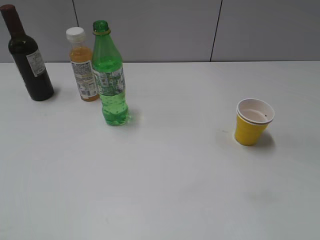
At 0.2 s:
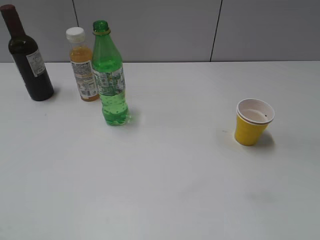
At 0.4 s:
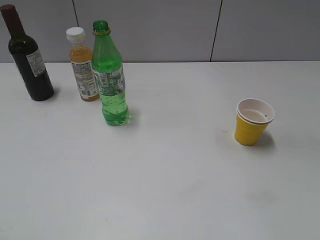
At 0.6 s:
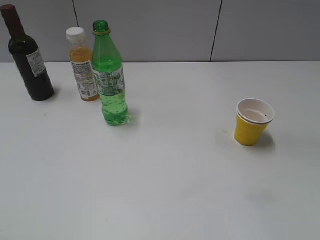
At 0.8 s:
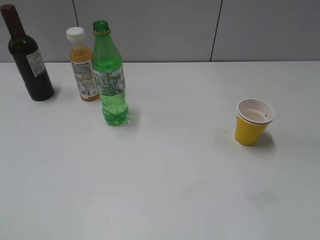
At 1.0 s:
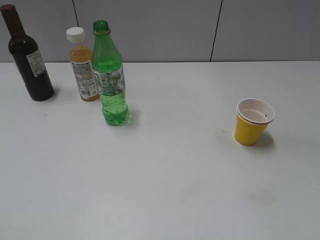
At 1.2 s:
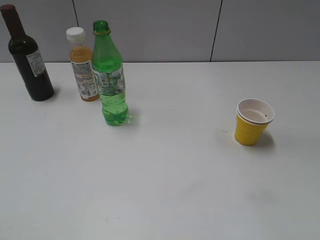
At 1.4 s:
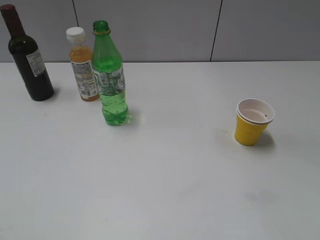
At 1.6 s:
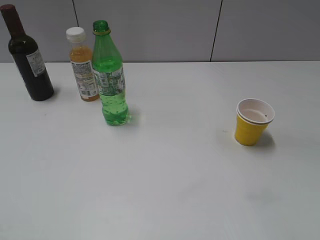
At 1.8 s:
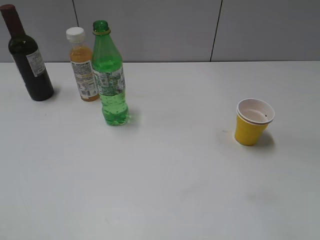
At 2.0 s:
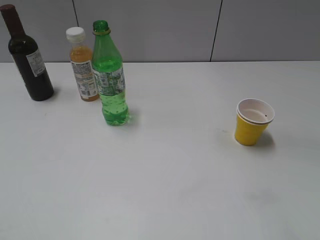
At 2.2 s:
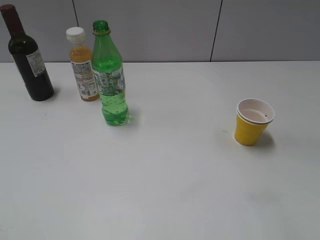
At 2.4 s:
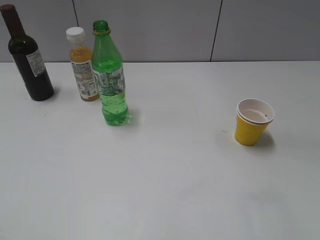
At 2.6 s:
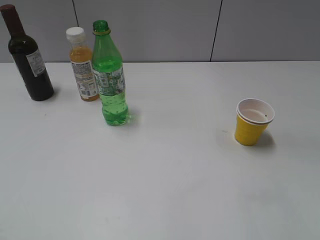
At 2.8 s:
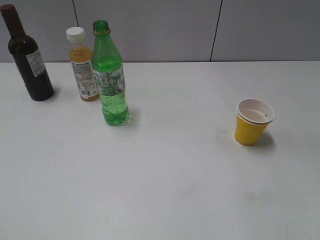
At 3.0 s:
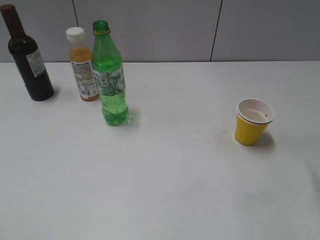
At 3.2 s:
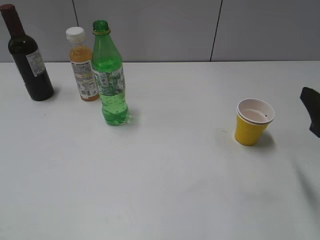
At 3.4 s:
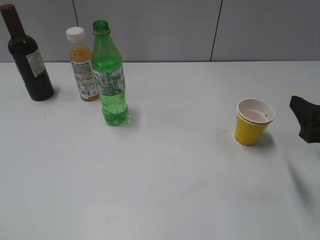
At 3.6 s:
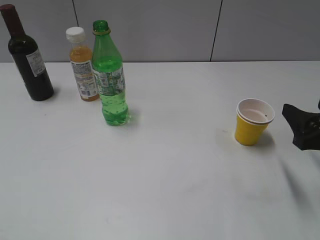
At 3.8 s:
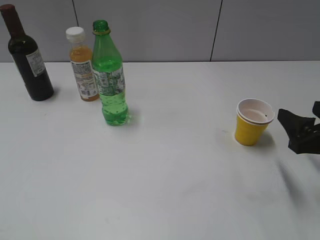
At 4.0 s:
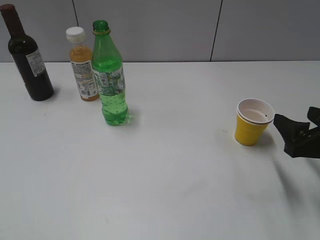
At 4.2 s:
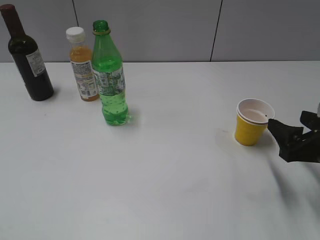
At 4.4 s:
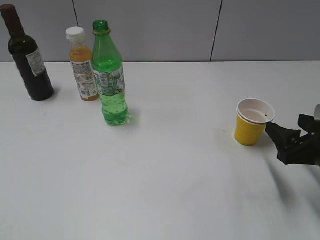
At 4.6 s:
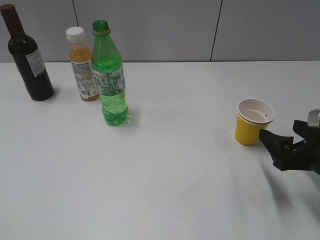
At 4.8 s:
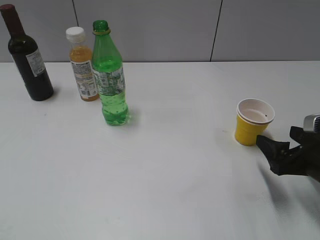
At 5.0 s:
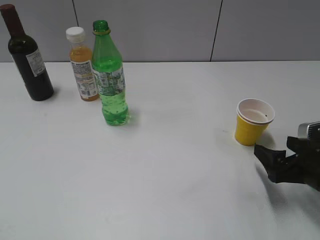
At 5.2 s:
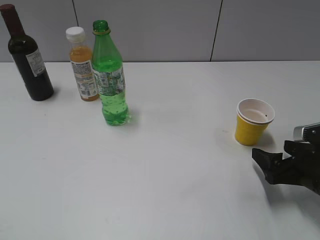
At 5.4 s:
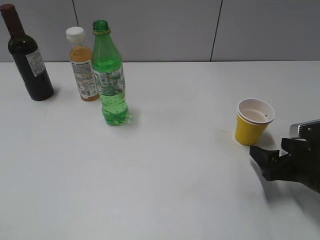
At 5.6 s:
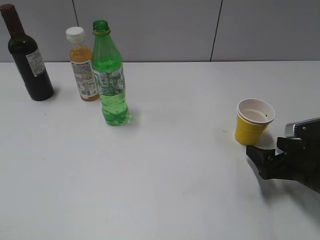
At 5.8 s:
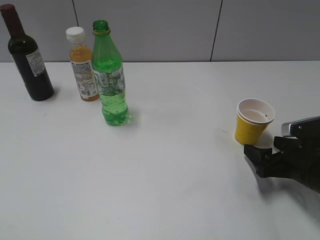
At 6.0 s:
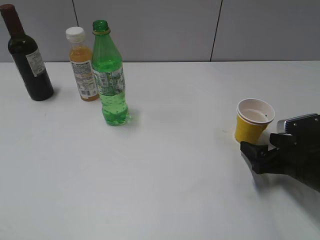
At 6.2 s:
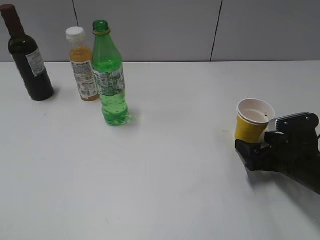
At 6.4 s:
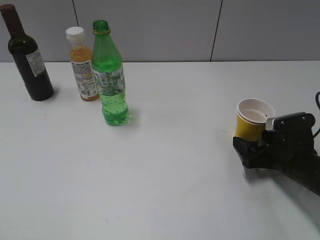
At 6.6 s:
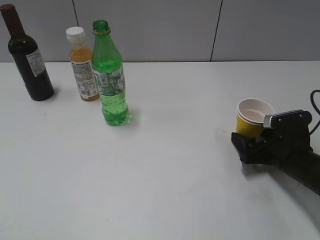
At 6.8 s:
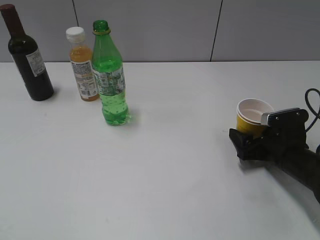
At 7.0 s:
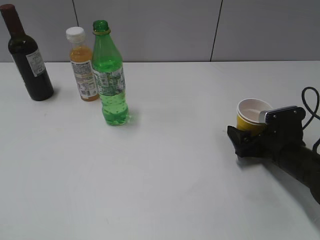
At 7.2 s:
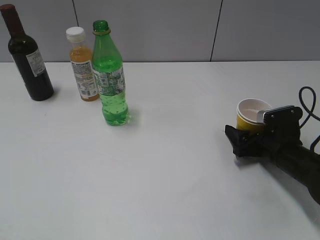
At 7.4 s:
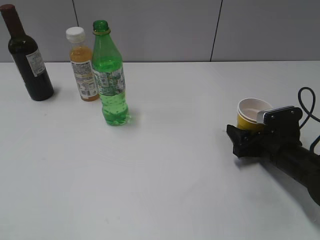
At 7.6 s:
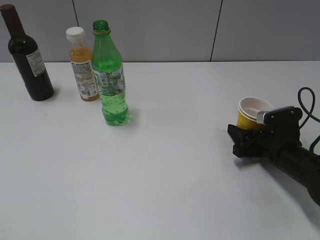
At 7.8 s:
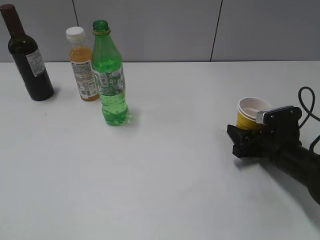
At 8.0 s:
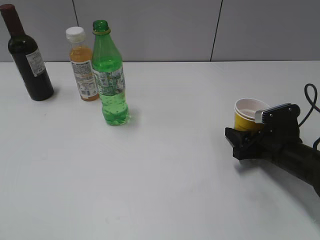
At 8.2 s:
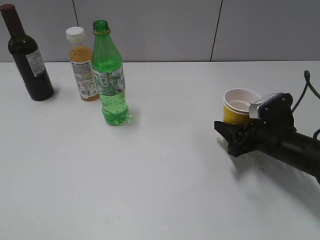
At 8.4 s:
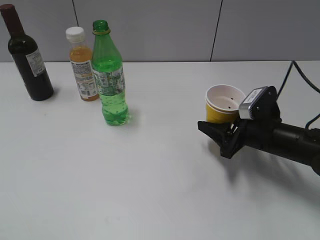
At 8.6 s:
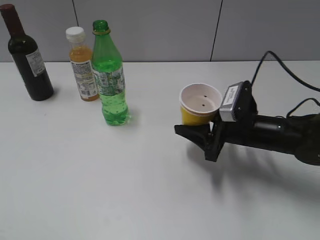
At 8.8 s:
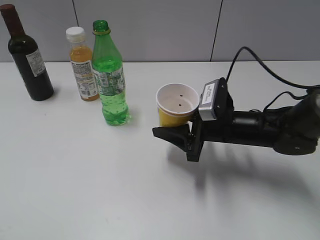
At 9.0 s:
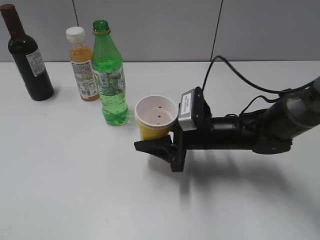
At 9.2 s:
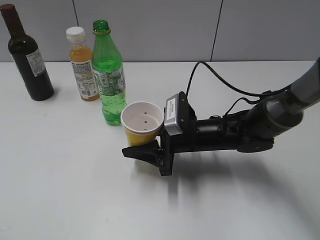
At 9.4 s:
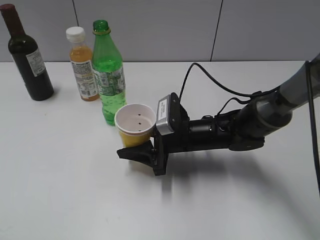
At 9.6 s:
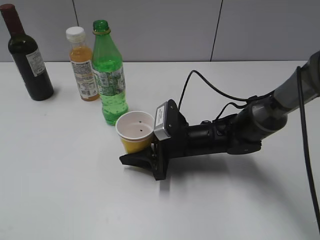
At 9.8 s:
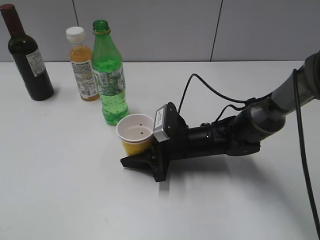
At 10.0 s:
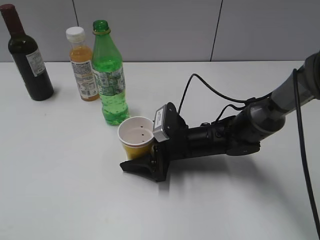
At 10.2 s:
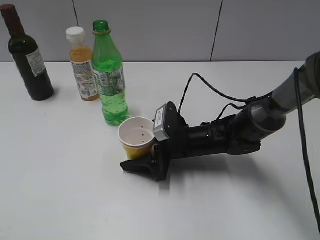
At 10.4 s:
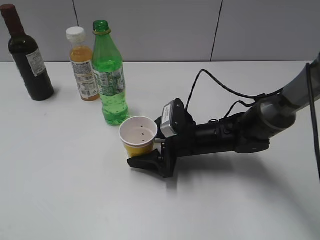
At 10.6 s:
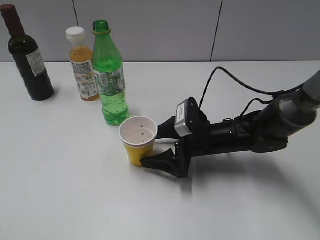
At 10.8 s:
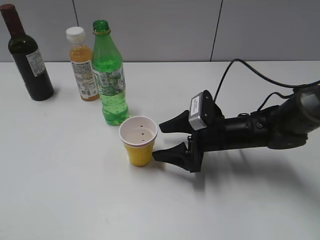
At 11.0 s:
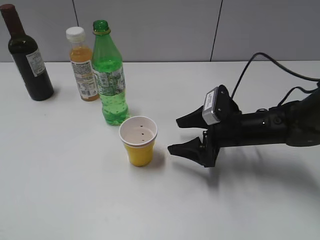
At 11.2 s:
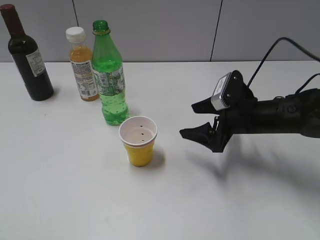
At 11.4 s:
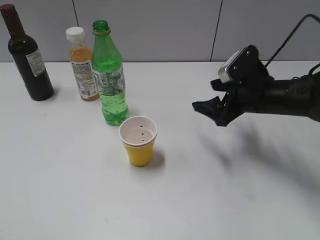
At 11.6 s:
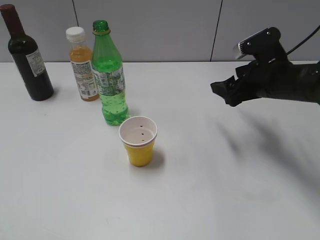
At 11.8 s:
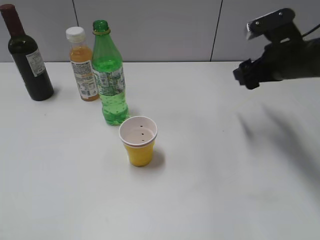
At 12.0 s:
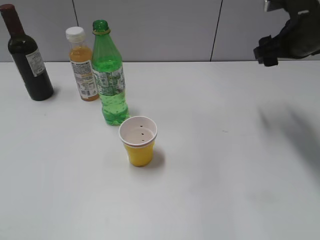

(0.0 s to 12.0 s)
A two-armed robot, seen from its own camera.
Step, 1.2 s - 7.6 s: Grasp the yellow paper cup with right gripper.
Step, 7.8 s - 10.6 s: Place the yellow paper cup on the table with right gripper.
3.0 s - 4.4 s: The right gripper moves downward, some 10 cm.
4.4 s - 6.0 s: The right gripper goes approximately 5 cm downward.
6.0 s - 7.6 s: The right gripper shifts by roughly 5 cm, and closes its fingers.
7.6 s - 9.0 s: The right gripper is displaced to the left by approximately 15 cm.
9.0 s - 10.4 s: The right gripper opens up.
10.4 s - 12.0 s: The right gripper travels upward and to the right by some 25 cm.

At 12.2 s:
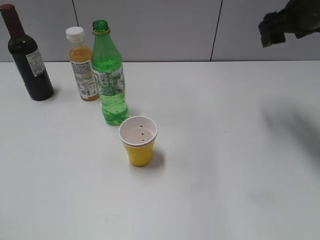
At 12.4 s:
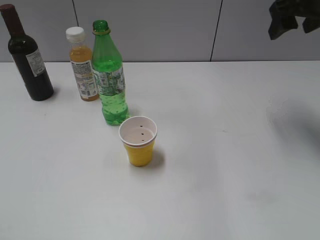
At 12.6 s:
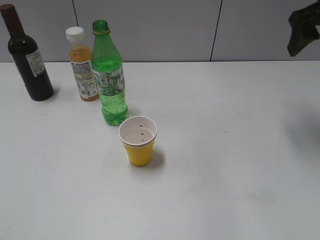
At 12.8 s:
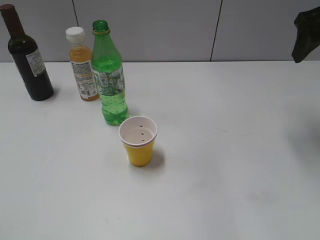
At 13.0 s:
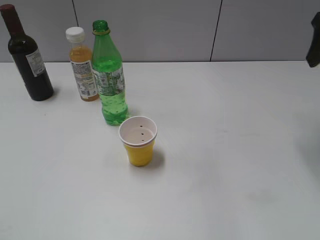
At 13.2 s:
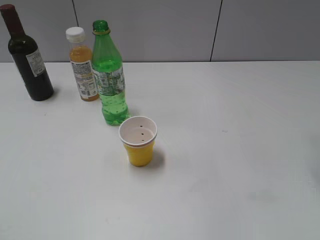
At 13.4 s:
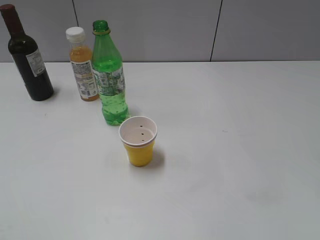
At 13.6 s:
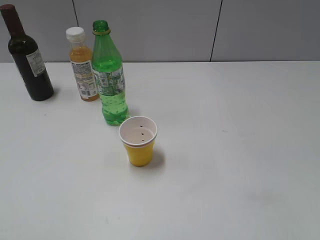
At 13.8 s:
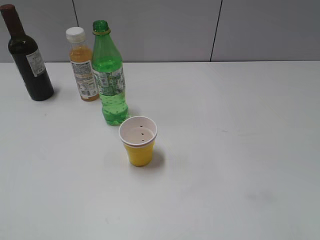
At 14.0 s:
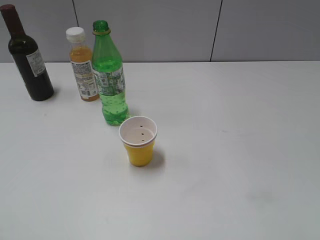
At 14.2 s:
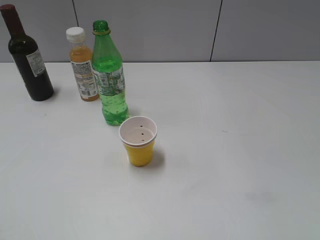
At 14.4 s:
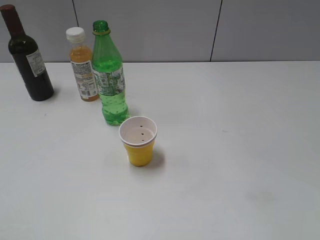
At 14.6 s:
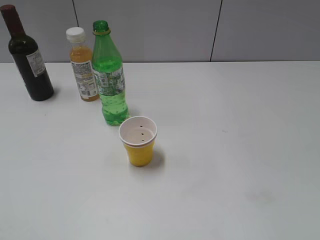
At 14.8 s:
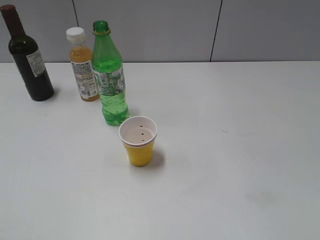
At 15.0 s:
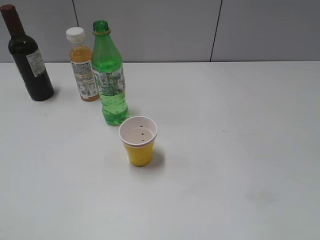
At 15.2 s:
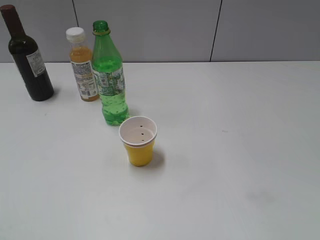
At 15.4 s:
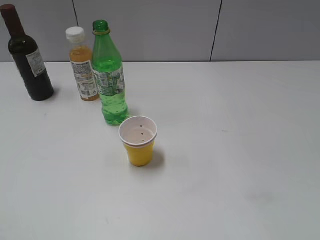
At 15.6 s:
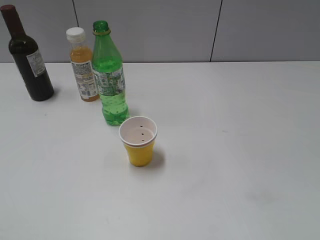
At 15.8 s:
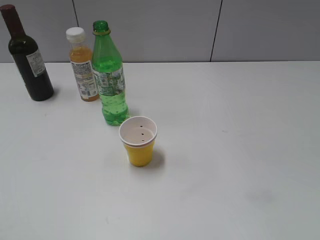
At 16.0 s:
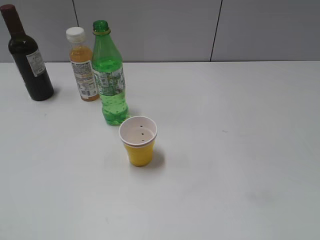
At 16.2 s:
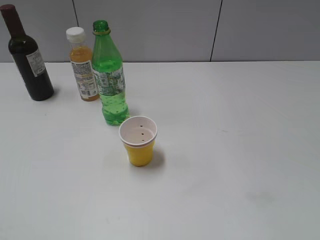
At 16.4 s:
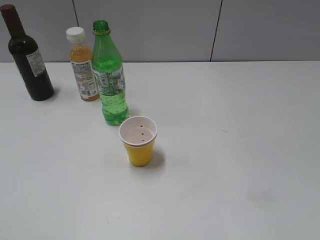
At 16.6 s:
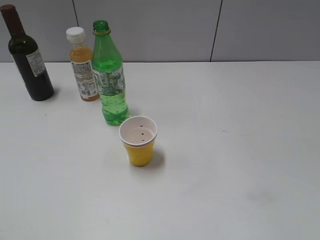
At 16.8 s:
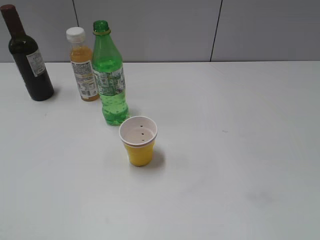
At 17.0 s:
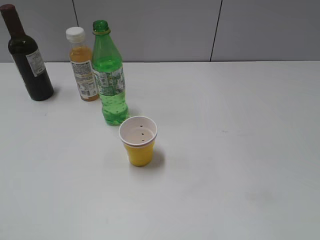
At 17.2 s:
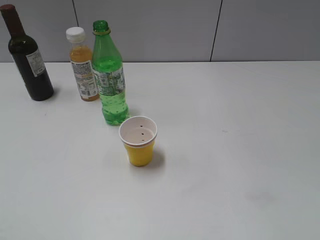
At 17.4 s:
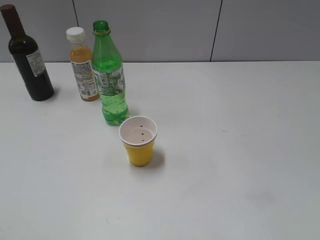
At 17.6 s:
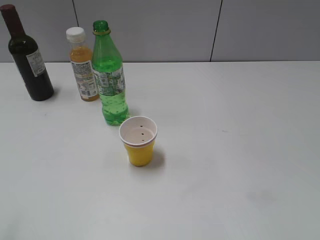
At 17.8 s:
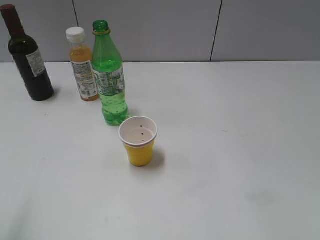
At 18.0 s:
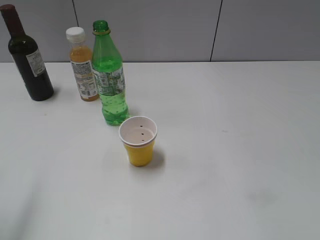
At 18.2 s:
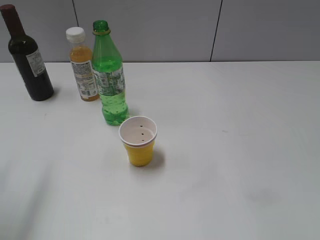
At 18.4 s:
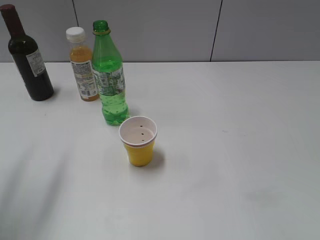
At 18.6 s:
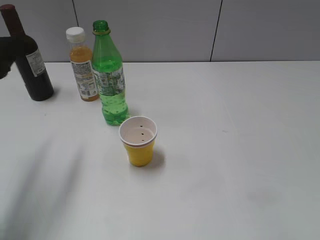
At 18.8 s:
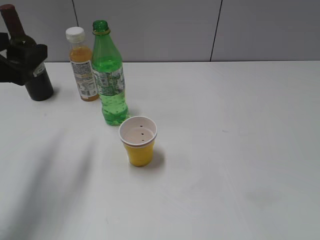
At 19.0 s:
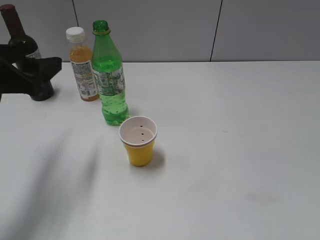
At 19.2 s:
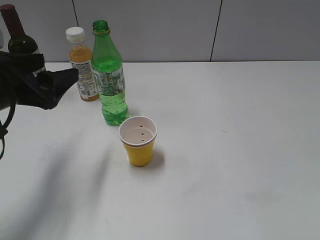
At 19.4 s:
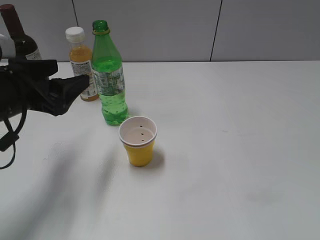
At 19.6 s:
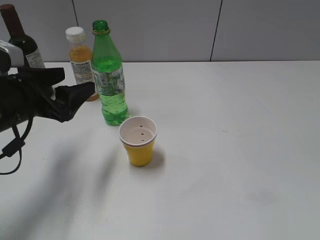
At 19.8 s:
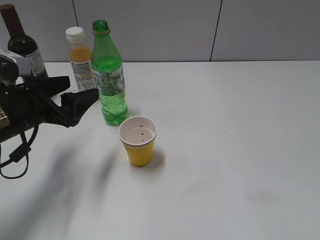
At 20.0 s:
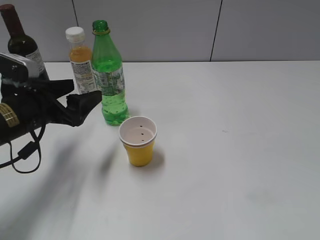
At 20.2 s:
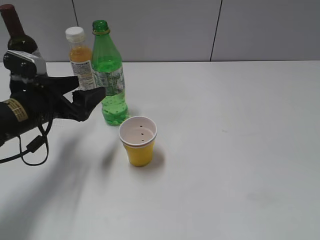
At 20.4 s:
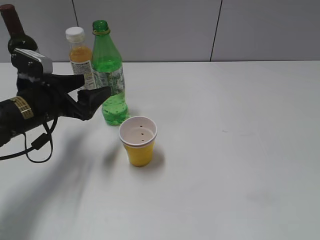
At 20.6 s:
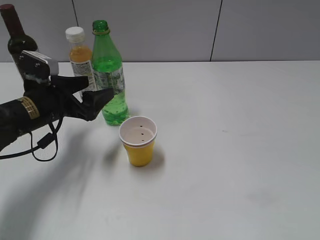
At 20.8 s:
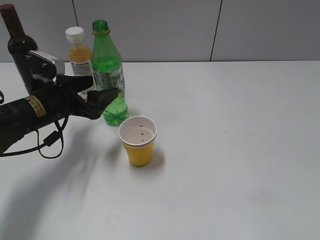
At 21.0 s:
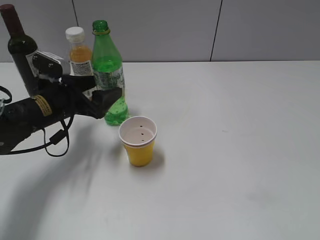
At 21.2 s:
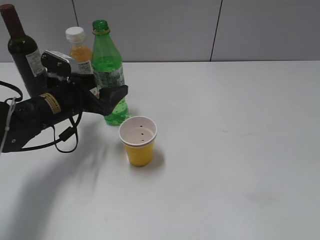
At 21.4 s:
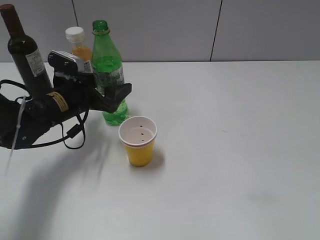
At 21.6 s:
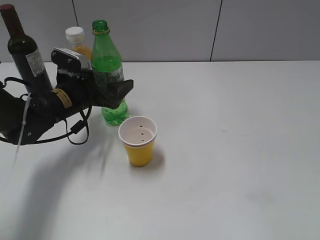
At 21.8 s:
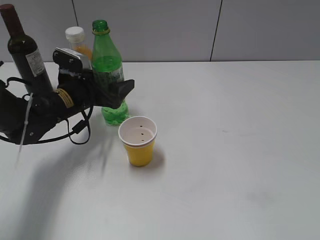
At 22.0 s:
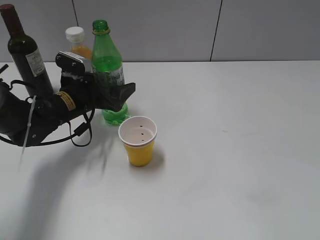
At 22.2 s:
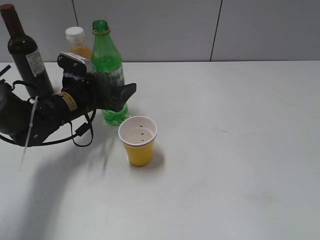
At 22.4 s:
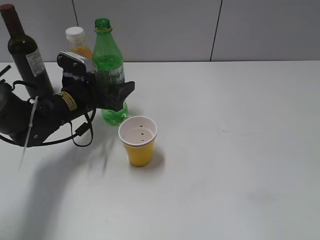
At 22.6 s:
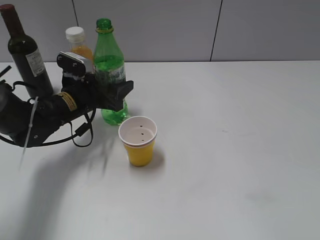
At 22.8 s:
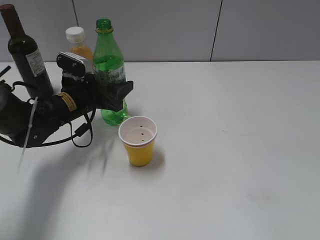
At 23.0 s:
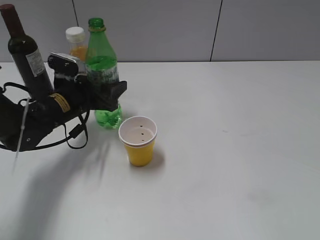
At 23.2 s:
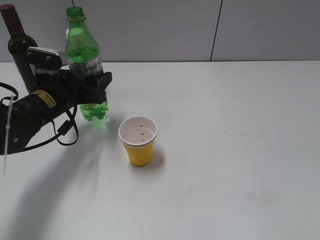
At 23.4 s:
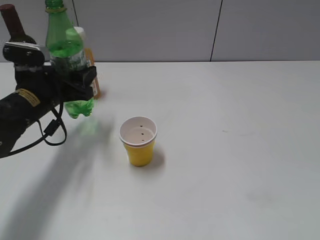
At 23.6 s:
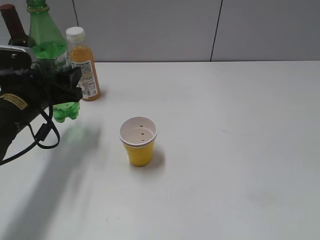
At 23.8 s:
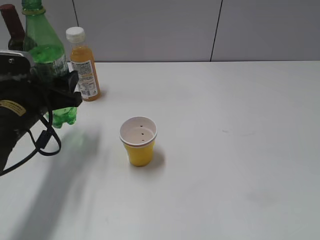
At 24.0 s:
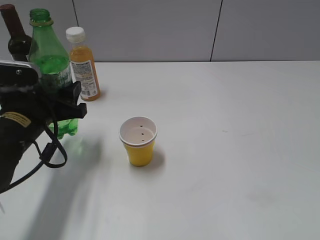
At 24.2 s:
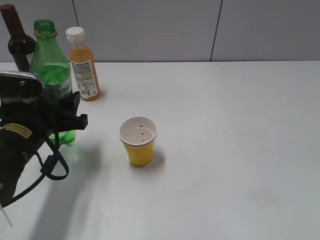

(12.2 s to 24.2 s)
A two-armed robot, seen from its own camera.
Step, 12.2 s - 22.6 s: Grasp the bottle with sprite with left gripper.
12.2 s - 13.8 s: The right gripper moves backward, about 25 cm.
15.2 s - 16.6 s: Both grippers stay about where they are.
16.6 s - 18.2 s: The left gripper moves forward, about 20 cm.
18.2 s - 19.8 s: The left gripper moves downward, forward and to the right, roughly 20 cm.
19.8 s - 21.2 s: The left gripper goes some 10 cm forward.
21.2 s - 22.6 s: The left gripper closes up.
22.6 s - 24.2 s: The left gripper moves backward, roughly 15 cm.
